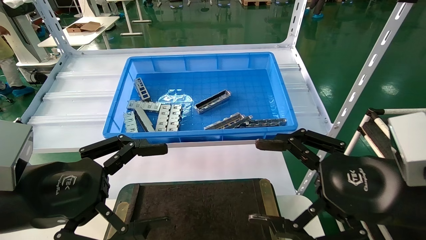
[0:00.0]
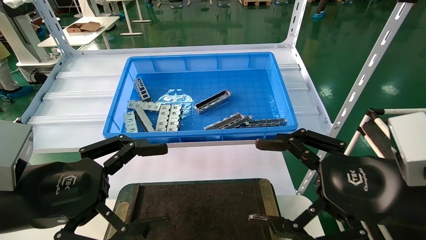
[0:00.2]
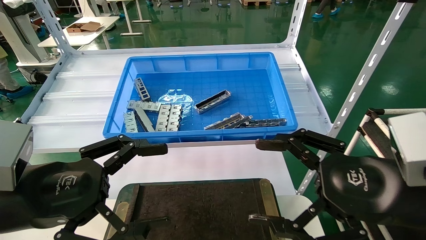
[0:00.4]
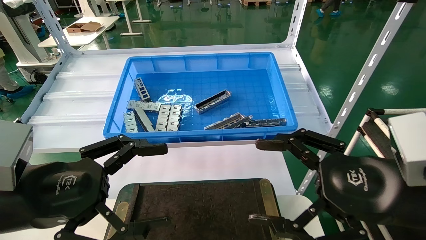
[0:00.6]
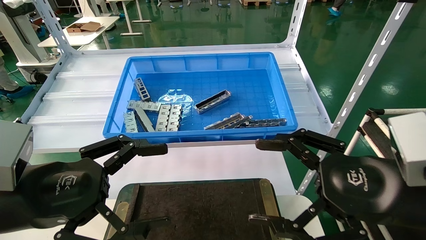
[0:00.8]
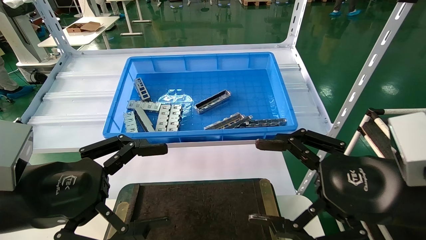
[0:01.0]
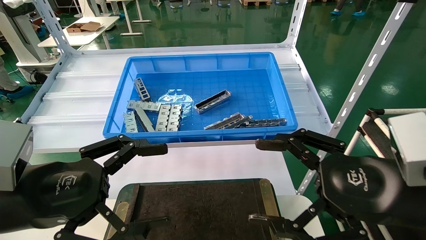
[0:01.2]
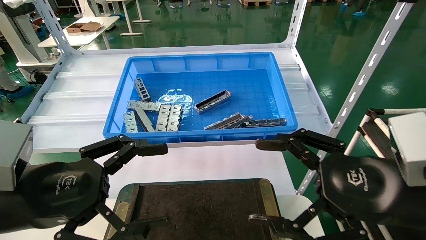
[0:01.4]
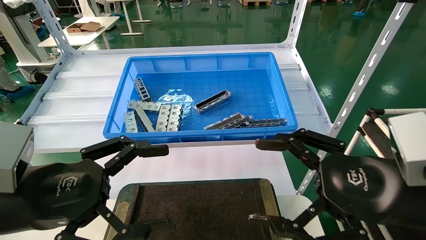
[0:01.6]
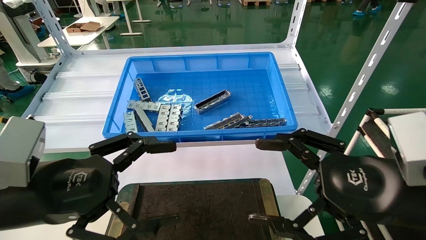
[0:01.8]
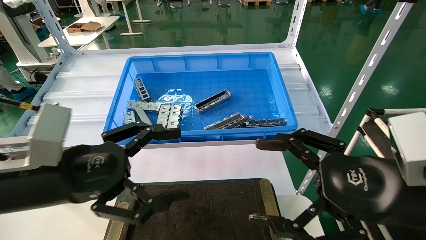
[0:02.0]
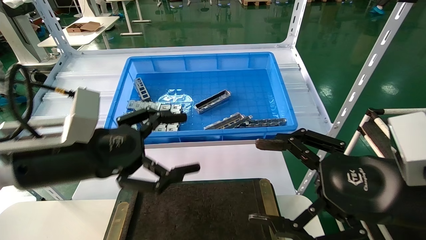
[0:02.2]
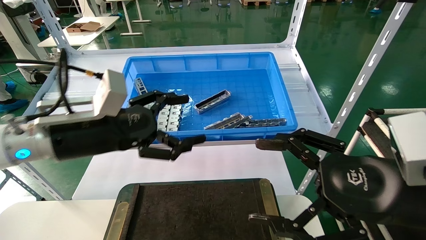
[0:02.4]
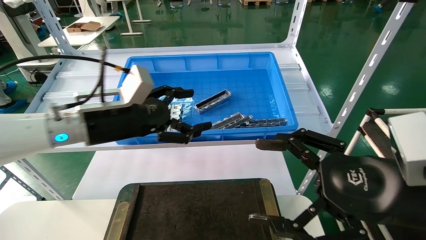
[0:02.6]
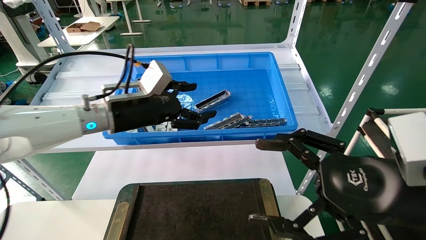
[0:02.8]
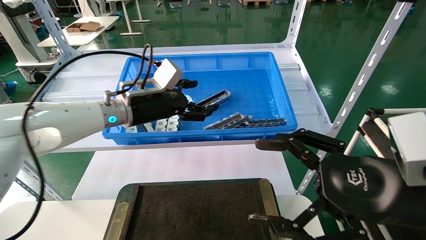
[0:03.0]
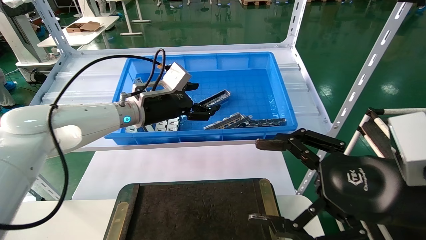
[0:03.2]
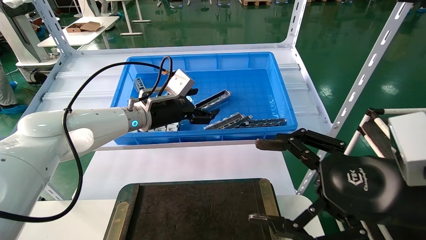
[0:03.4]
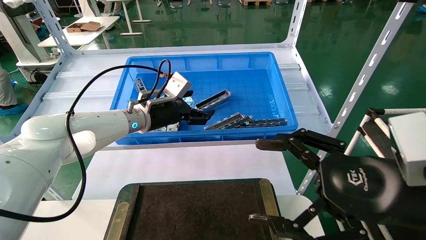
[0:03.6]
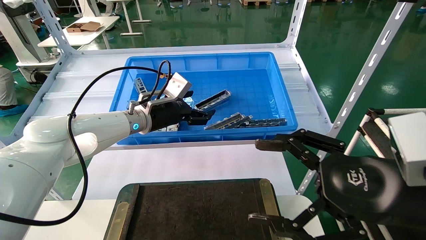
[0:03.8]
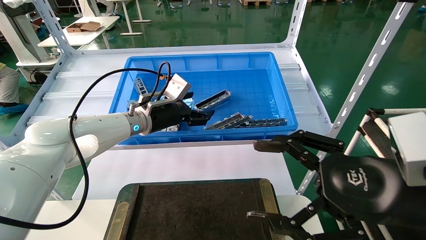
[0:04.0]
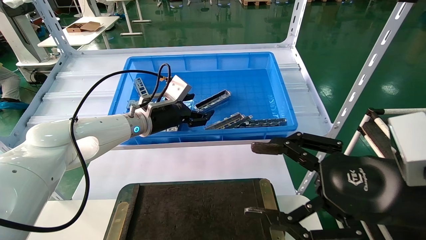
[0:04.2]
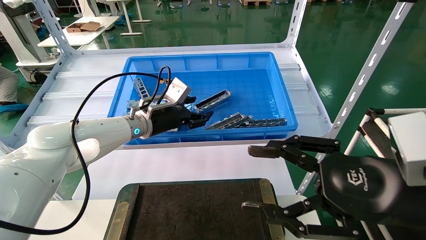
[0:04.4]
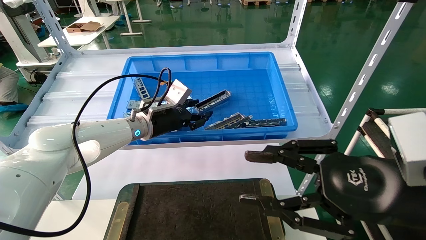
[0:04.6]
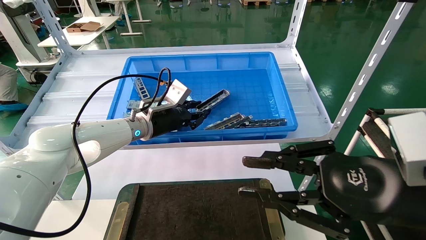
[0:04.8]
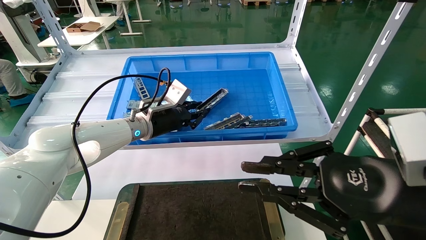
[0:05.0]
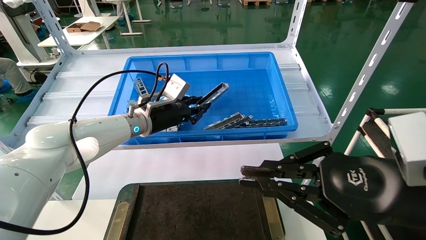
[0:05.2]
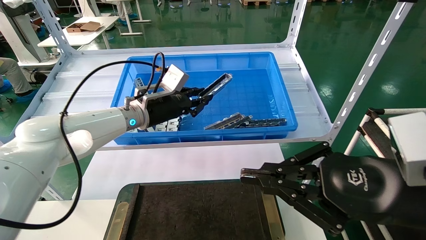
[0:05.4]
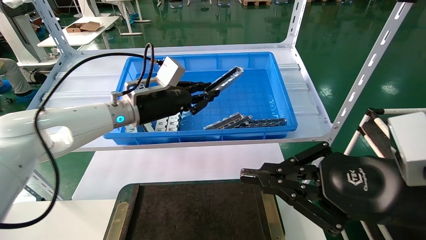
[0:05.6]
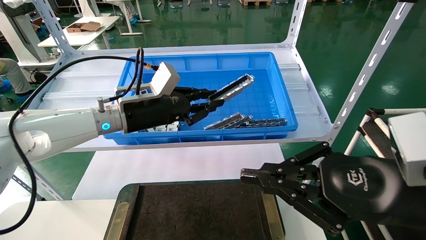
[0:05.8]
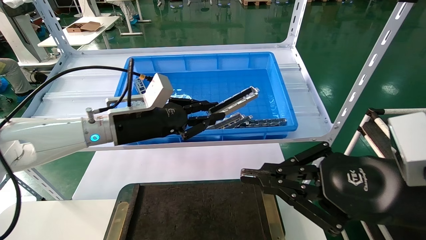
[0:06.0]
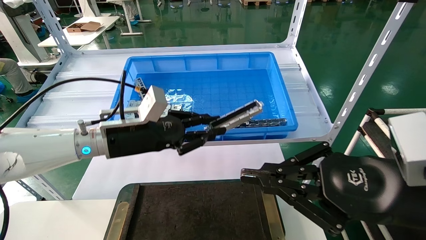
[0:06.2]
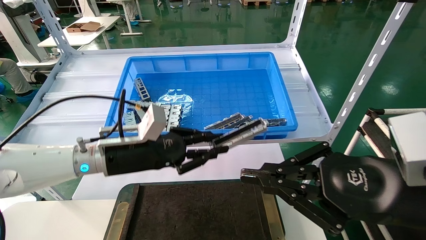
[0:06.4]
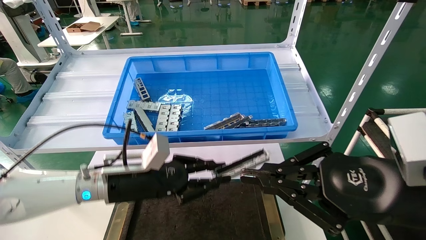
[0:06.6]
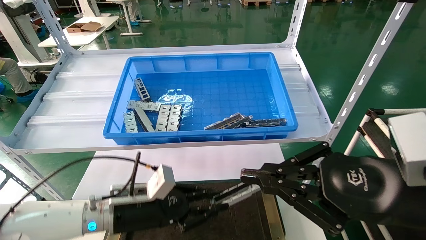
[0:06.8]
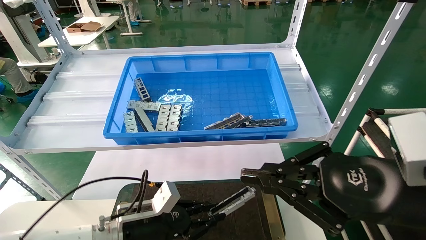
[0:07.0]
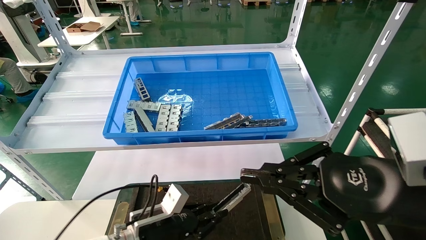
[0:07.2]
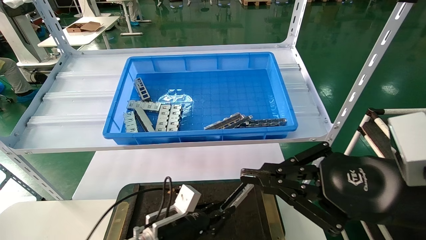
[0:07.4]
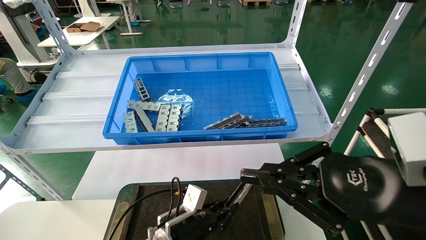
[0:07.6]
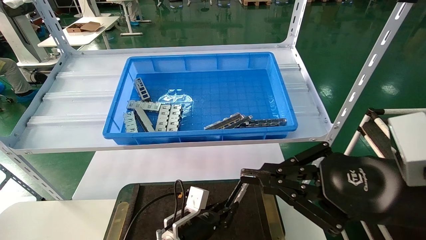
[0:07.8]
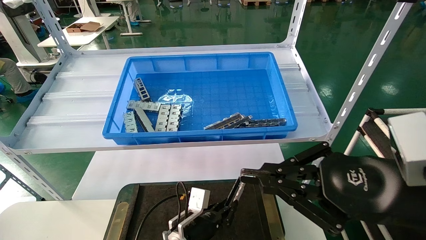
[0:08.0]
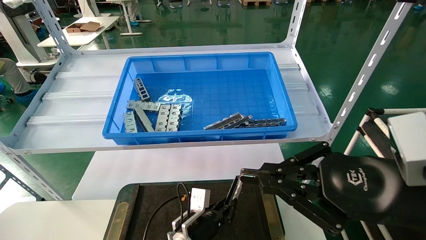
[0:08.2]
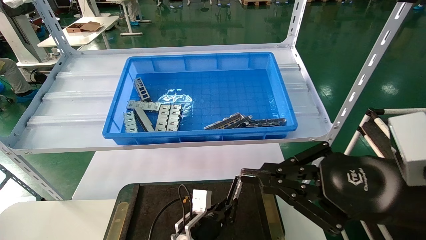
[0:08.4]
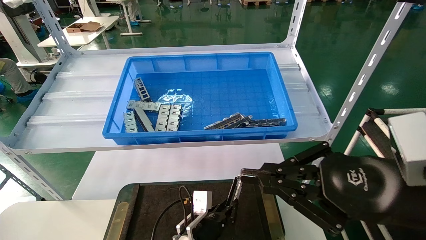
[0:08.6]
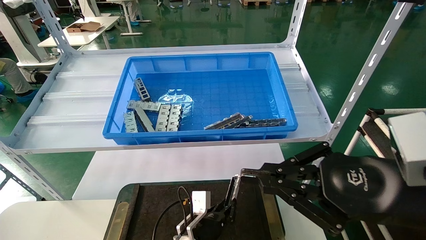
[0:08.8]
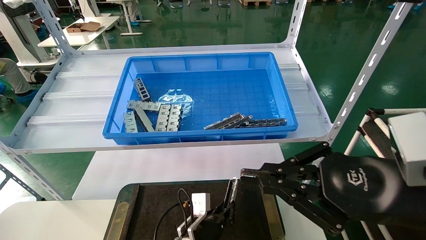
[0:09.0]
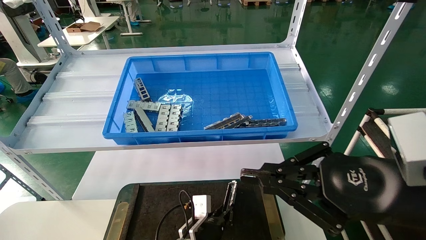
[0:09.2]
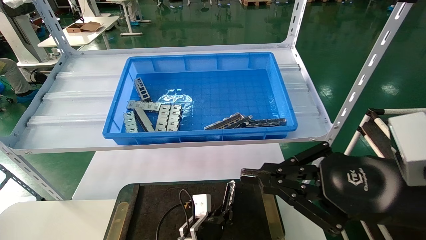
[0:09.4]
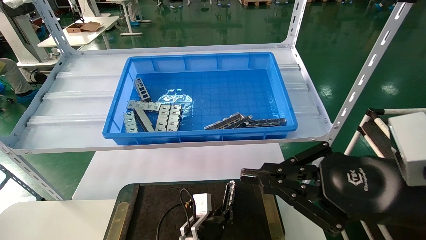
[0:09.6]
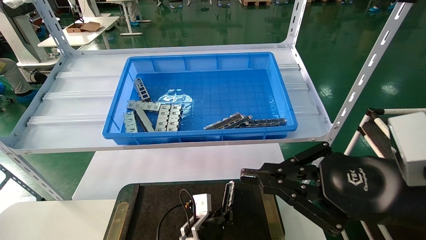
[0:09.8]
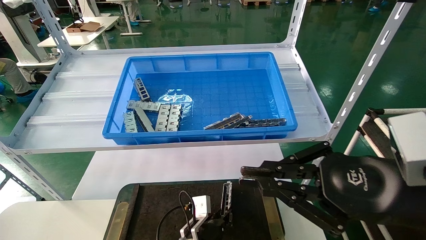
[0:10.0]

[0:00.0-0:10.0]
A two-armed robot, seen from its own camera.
Task of the whole recording: Grasp the part with one hand and place it on the black container.
Step, 0:02.4 to 0:06.0: Pick up the front USB bracket from the feeding area.
0:00.0 to 0:01.4: Both grippers stay put.
0:01.4 to 0:02.8: The left gripper shifts roughly 20 cm forward.
0:02.8 to 0:04.2: The left gripper is displaced forward by some 10 cm.
0:04.2 to 0:05.8: The right gripper closes. The left gripper is displaced backward by approximately 5 cm, and closes up.
0:05.8 to 0:07.2: The left gripper goes roughly 25 cm downward.
0:07.2 to 0:08.6: The left gripper shifts some 15 cm to the right and downward.
0:08.6 to 0:10.0: The grippers make only small movements.

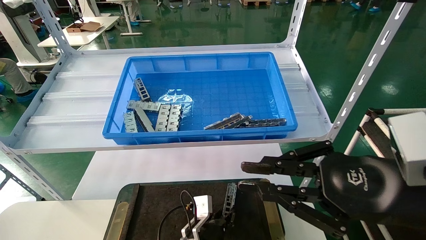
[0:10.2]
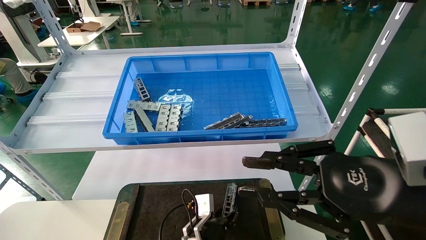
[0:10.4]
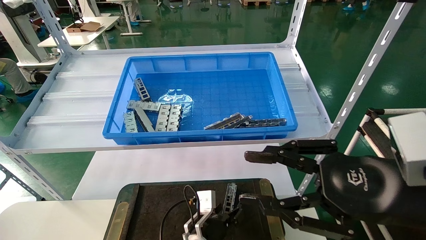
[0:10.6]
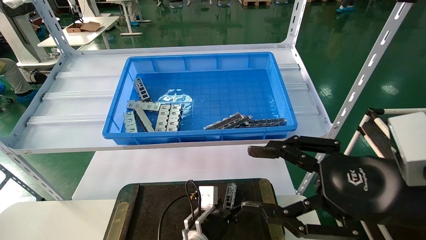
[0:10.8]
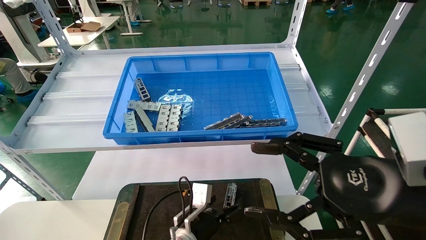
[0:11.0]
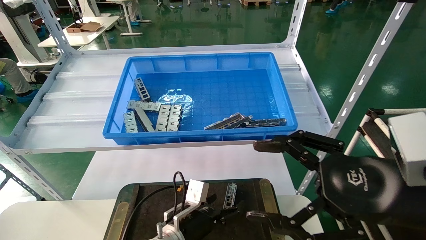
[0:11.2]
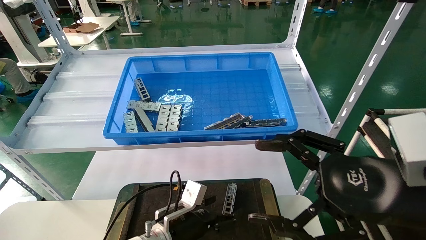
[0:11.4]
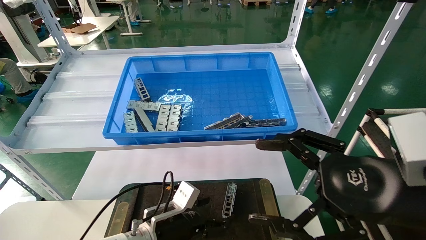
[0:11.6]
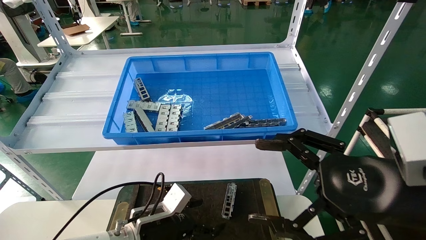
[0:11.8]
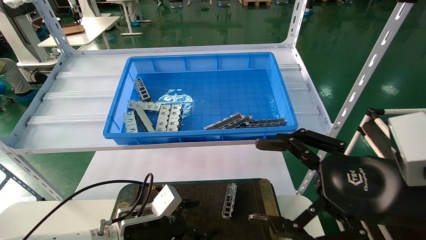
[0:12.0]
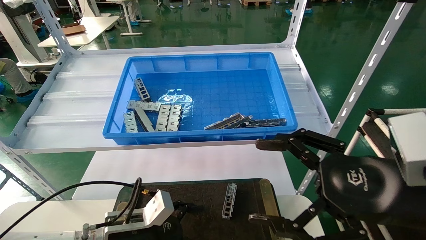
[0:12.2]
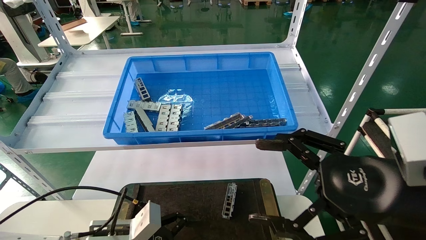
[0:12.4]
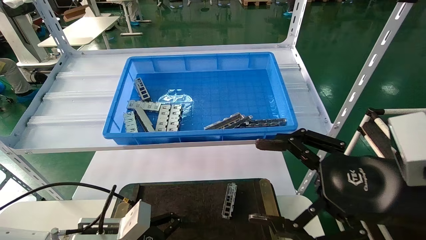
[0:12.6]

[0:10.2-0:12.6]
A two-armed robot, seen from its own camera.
Task of the whole recording: Grasp the part with one hand and place it on the black container.
0:10.2 to 0:11.4: The left gripper moves to the left and upward, about 10 cm, and opens its fingers. The right gripper opens.
0:11.4 to 0:12.6: The left gripper is displaced to the left, backward and upward by approximately 15 cm.
